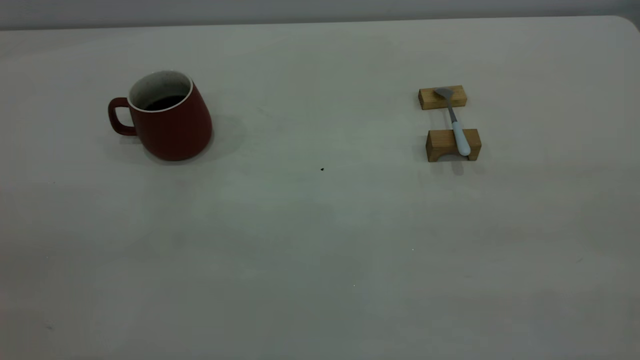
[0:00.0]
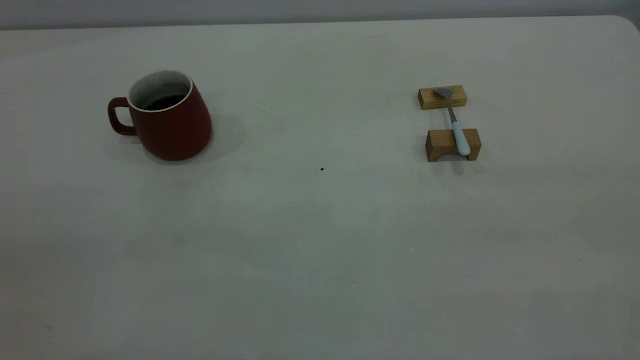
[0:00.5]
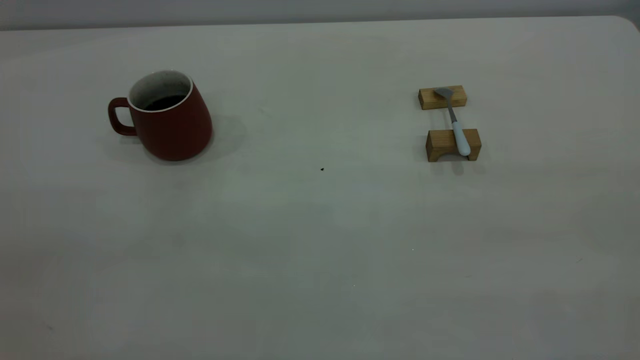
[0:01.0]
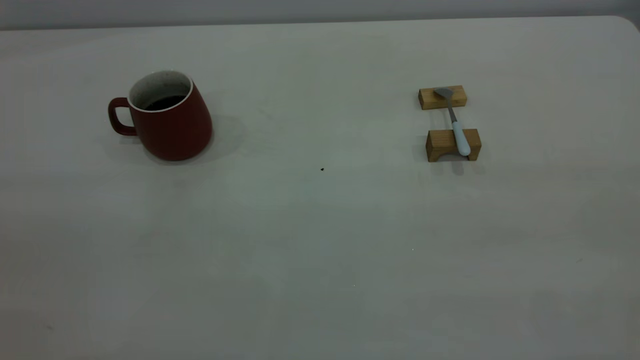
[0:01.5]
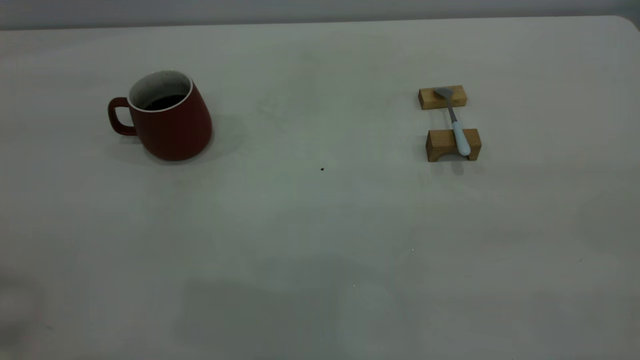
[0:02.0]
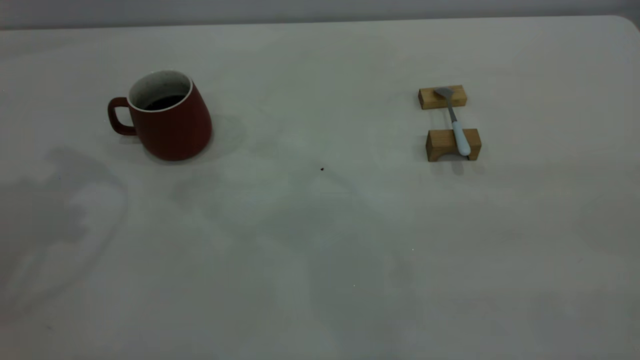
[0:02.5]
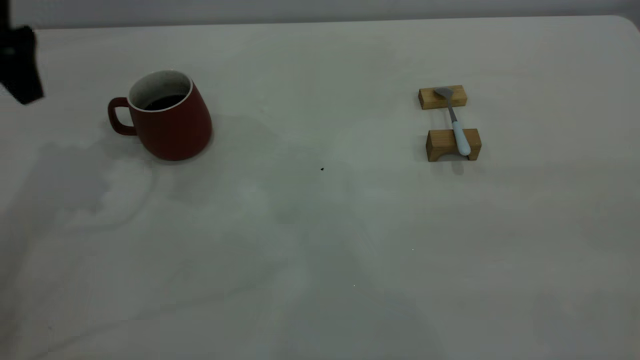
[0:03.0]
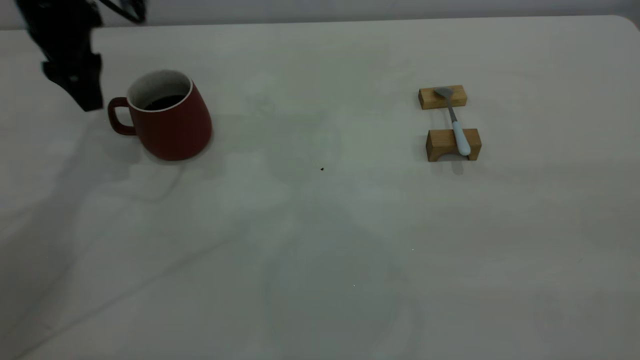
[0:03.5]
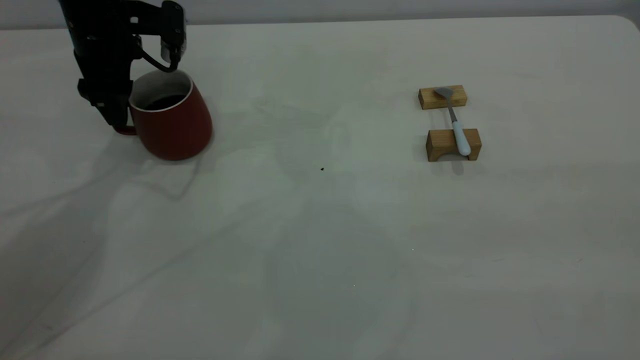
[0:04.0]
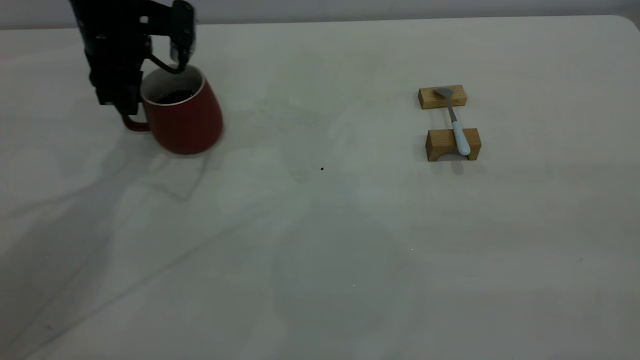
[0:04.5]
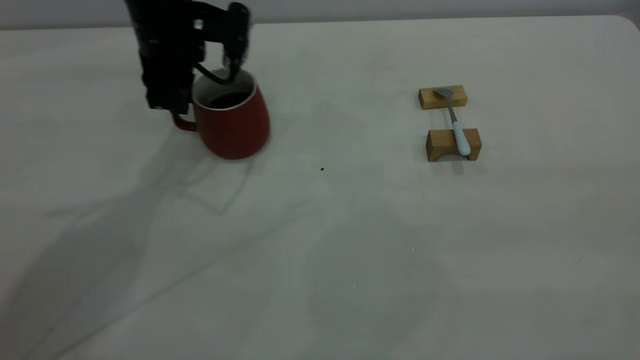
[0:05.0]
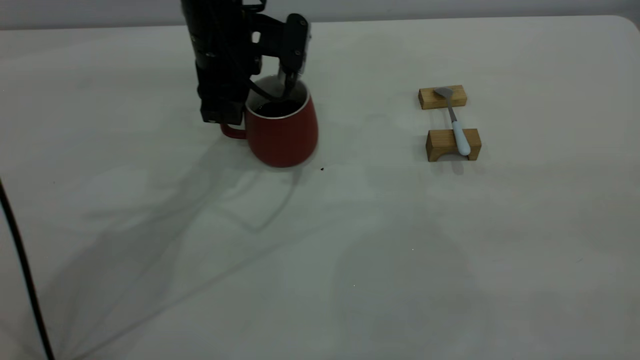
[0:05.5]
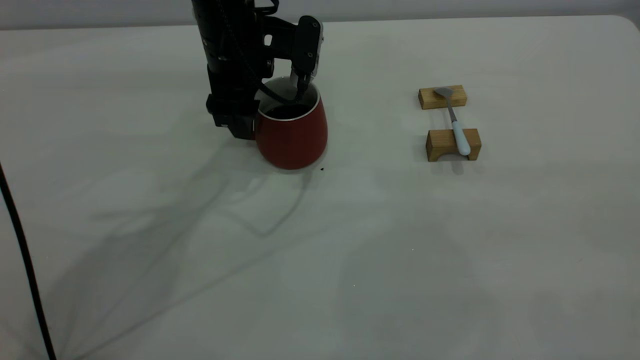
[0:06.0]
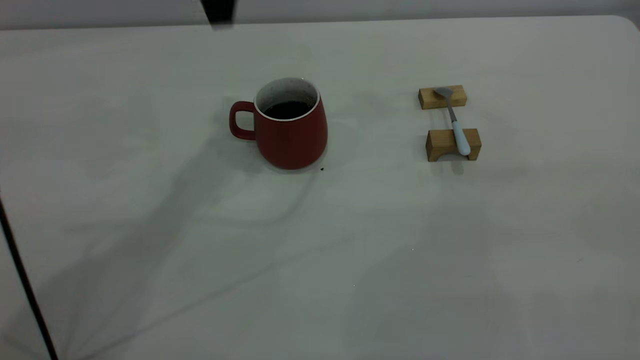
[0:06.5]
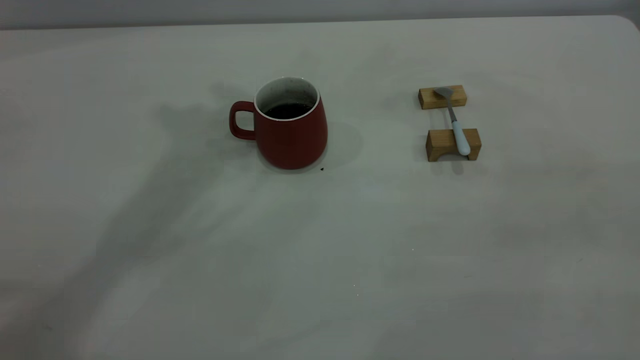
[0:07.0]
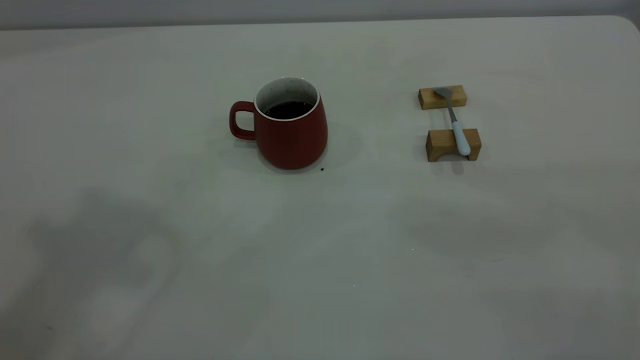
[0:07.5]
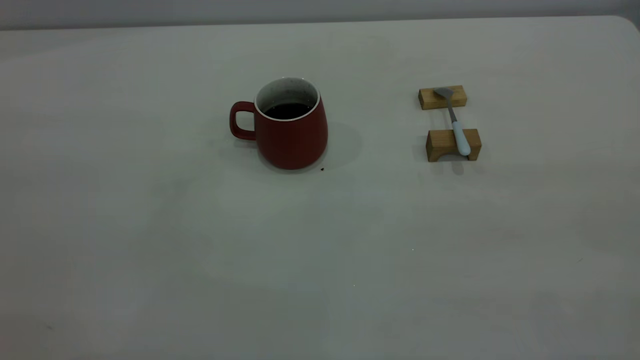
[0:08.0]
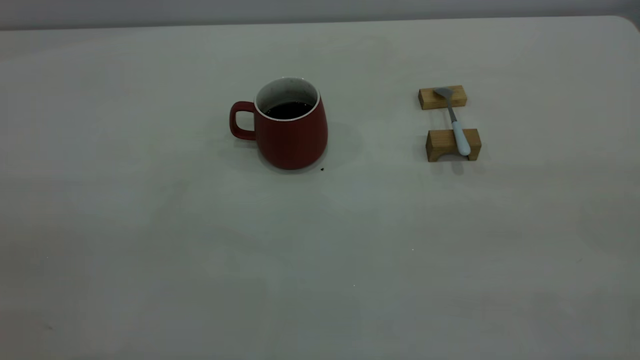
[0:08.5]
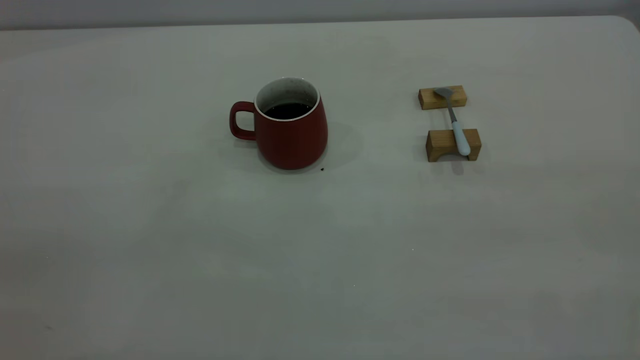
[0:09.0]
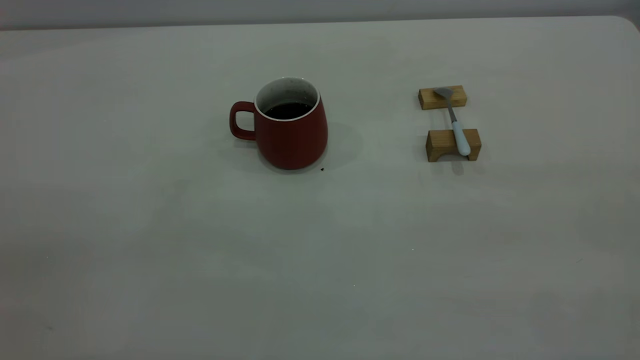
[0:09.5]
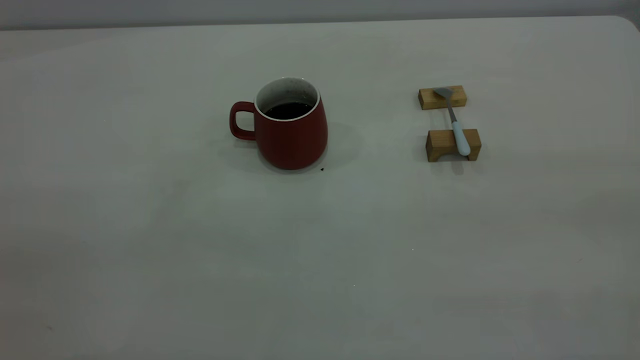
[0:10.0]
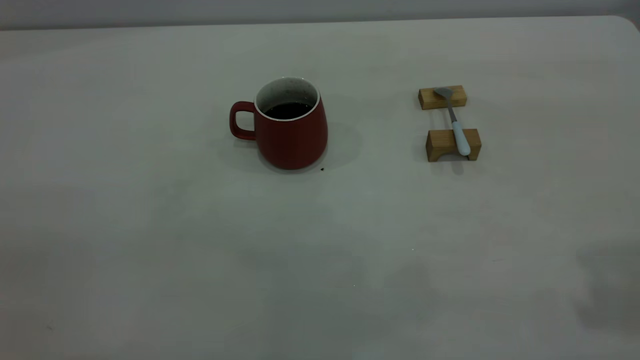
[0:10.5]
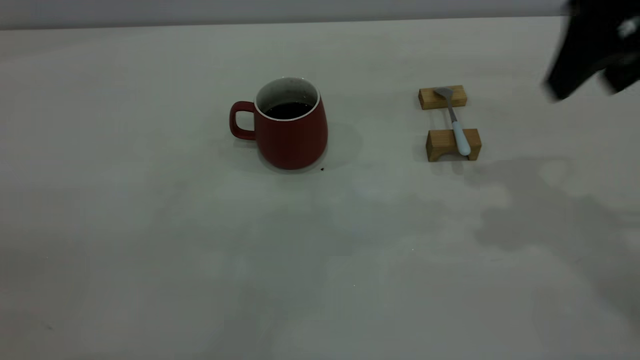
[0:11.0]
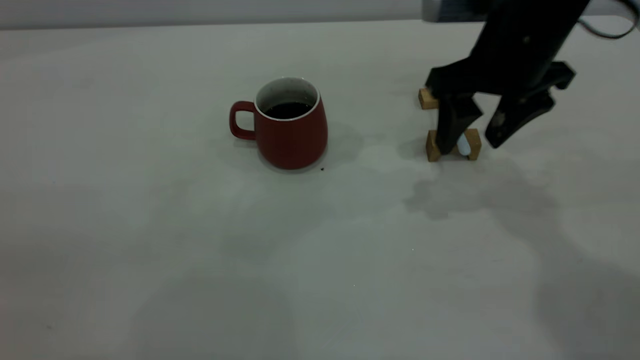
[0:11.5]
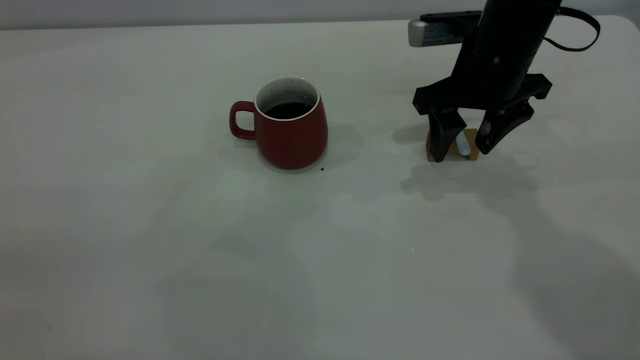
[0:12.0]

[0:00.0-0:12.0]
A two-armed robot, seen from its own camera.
Step, 0:00.0 to 0:06.0: Move the cup with coffee to the center of view.
0:02.0 to 0:04.0: The left gripper moves forward and downward, approximately 40 cm, and opens up.
0:04.0 to 0:06.0: The left gripper goes approximately 15 cm to the right, and closes, then reopens.
0:06.0 to 0:08.0: The left gripper travels backward, upward and to the left by approximately 50 cm, and closes its fingers.
0:10.0 to 0:12.0: The right gripper moves forward and downward, roughly 50 cm.

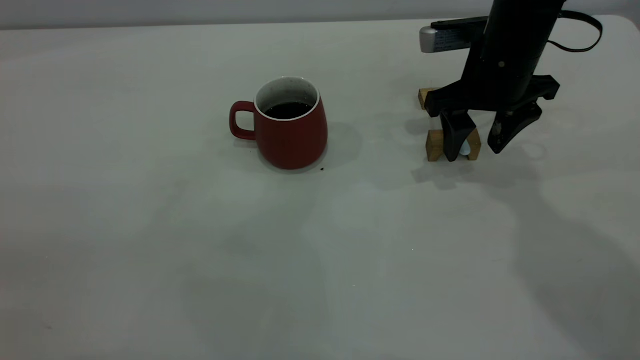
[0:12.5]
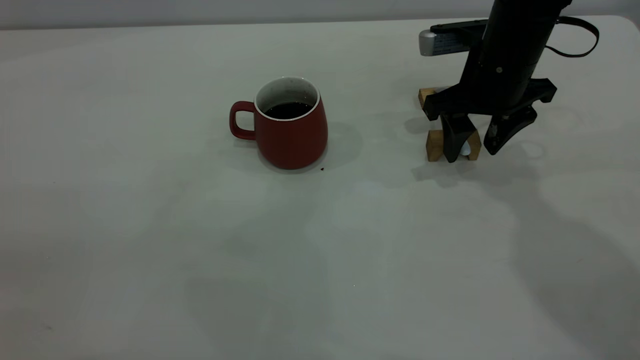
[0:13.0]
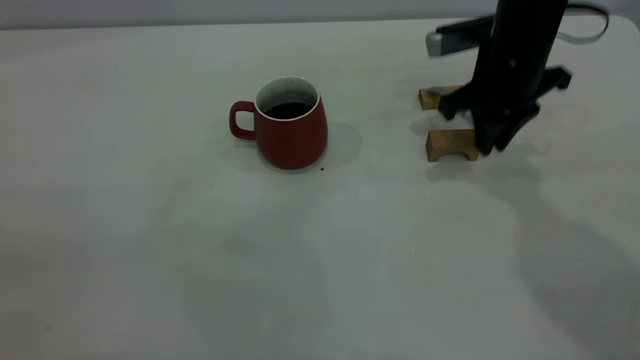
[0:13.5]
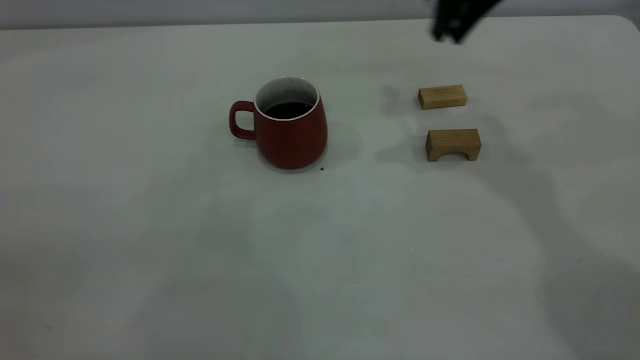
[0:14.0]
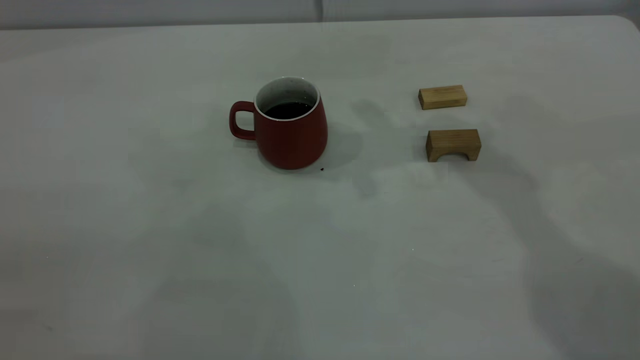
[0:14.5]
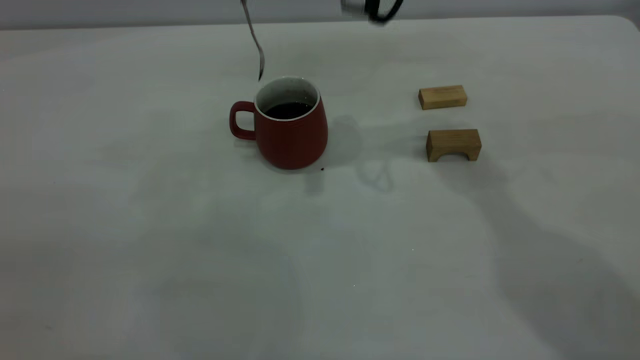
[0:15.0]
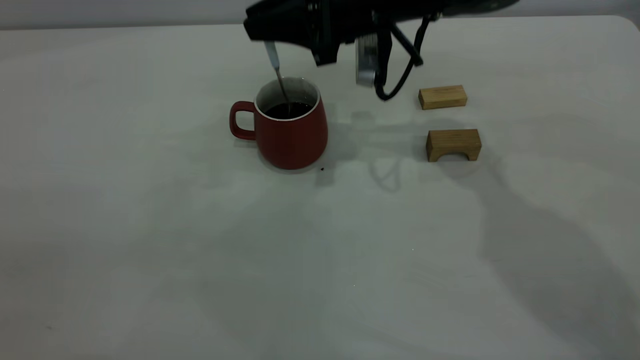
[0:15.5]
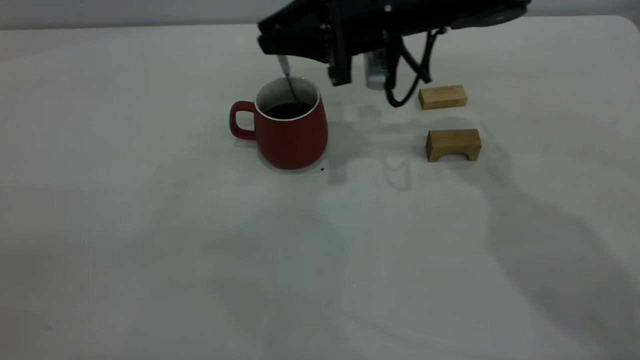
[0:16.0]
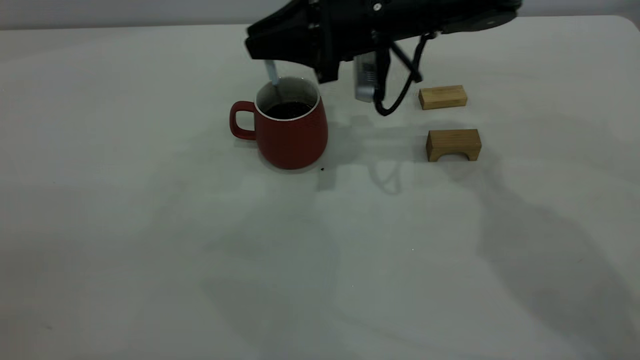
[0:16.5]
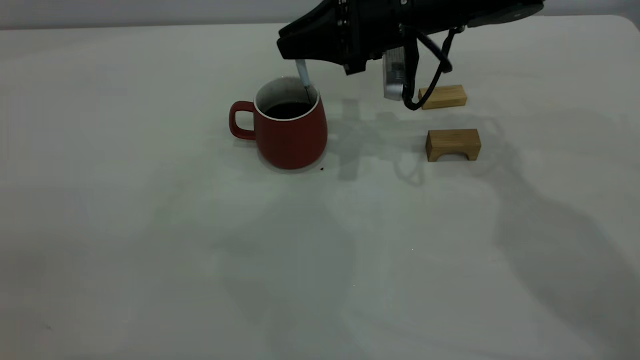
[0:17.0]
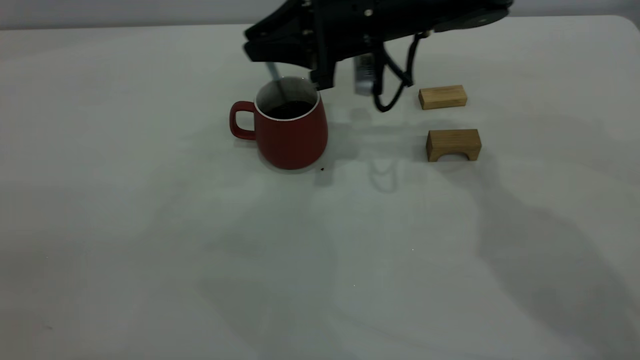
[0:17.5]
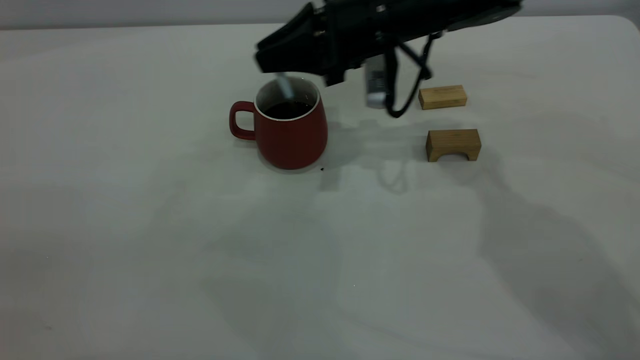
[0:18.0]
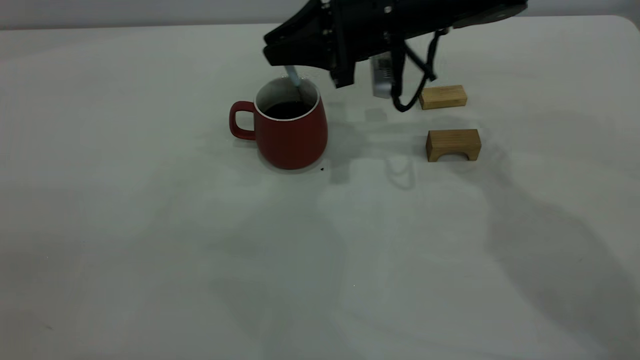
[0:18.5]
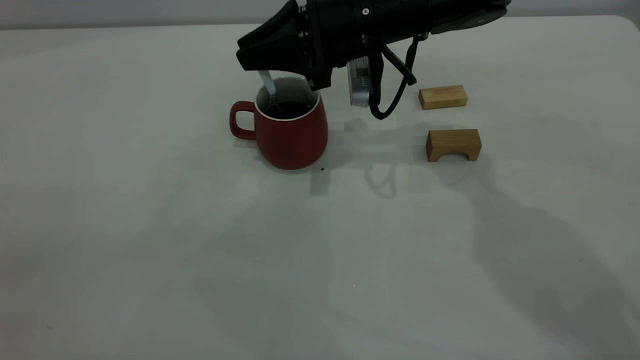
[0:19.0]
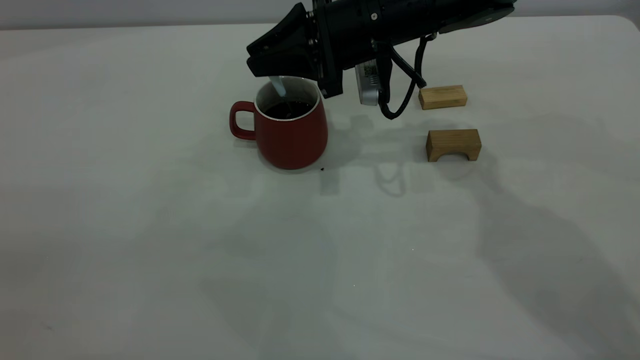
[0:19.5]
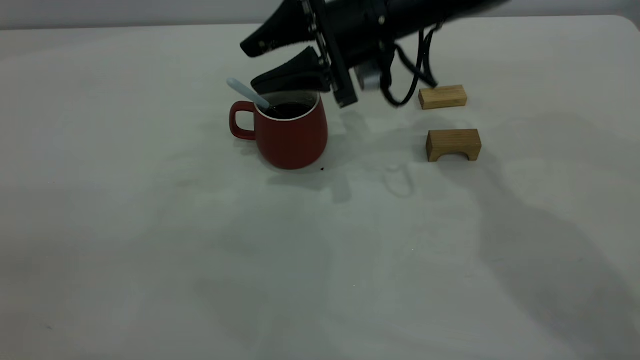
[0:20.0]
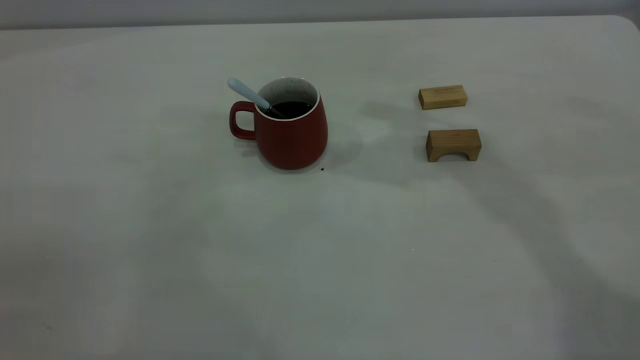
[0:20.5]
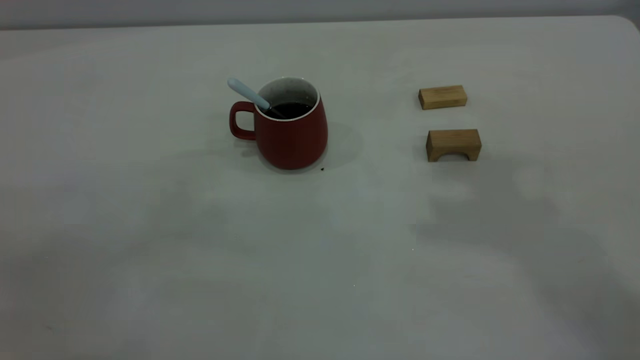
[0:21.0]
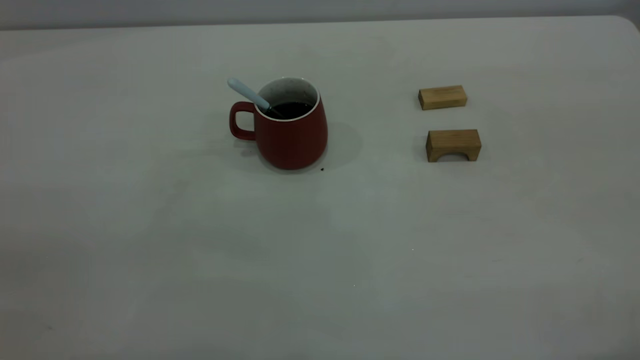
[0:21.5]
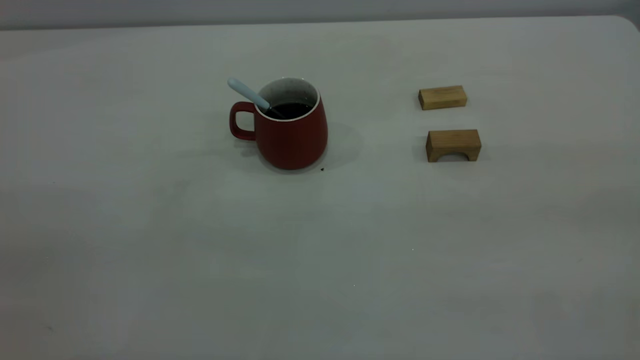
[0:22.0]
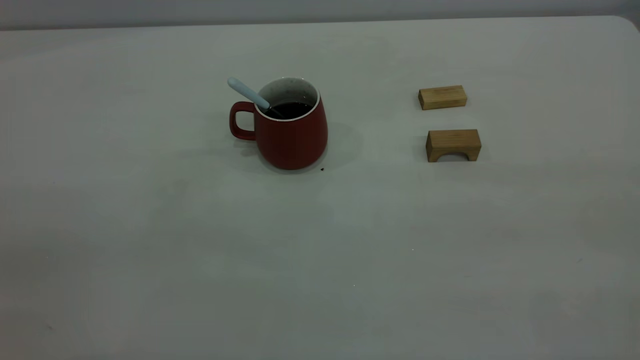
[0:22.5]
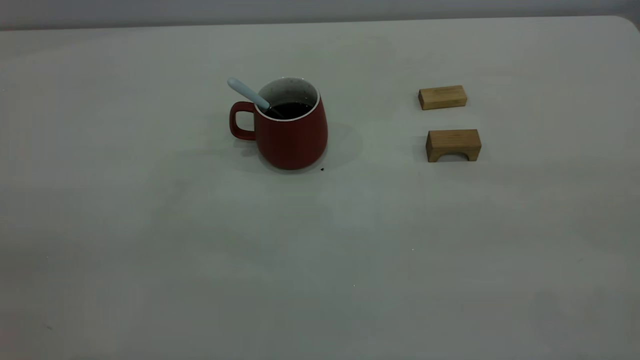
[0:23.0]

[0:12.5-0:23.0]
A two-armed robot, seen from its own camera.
Step, 0:14.0 to 0:19.5: Stir the coffee in the cup.
0:12.5 to 0:14.5: The right gripper shifts approximately 20 cm upward and to the left, and closes.
0:14.5 to 0:16.5: The right gripper goes about 15 cm downward.
0:16.5 to 0:19.0: There are only small adjustments of the grippers.
0:19.0 to 0:21.0: The right gripper moves upward and backward, approximately 40 cm, and opens.
